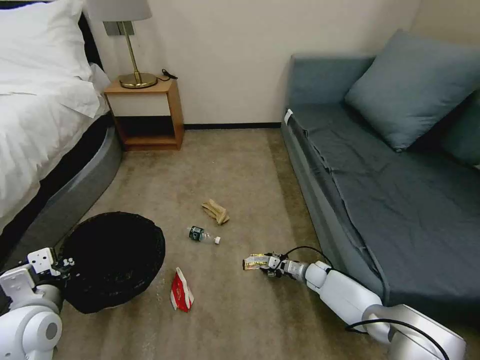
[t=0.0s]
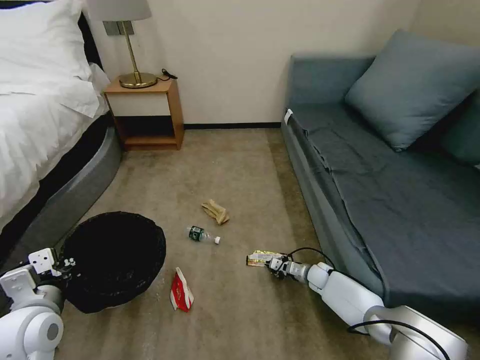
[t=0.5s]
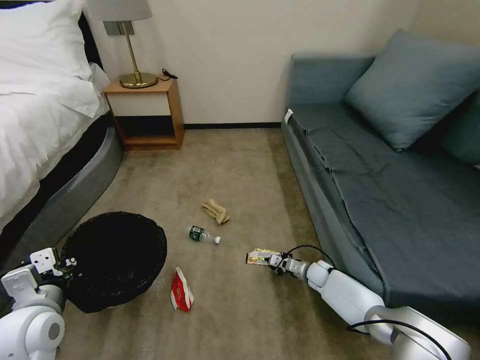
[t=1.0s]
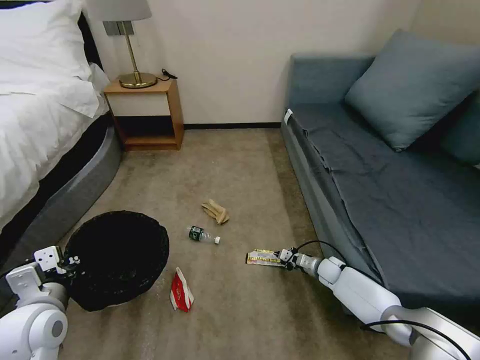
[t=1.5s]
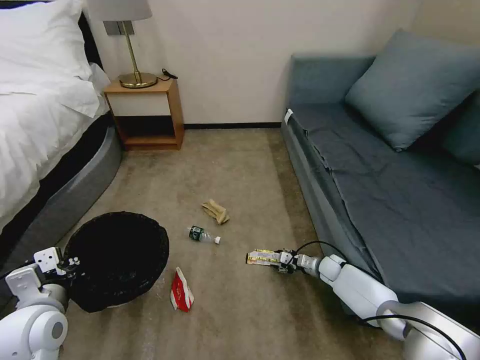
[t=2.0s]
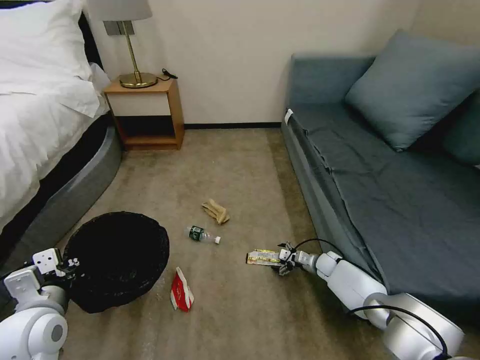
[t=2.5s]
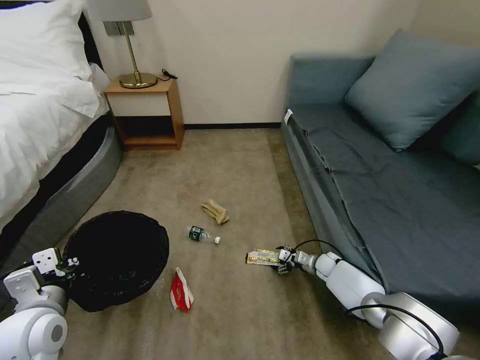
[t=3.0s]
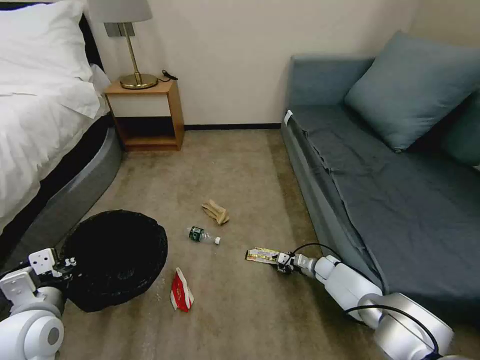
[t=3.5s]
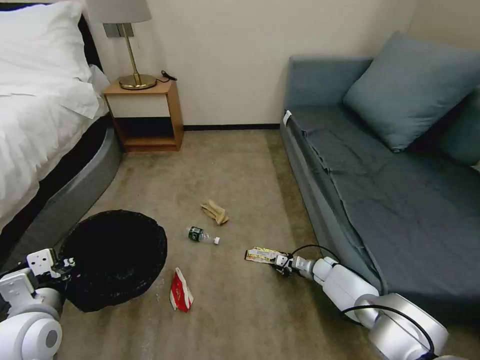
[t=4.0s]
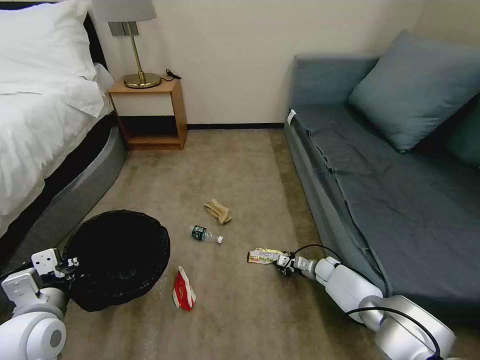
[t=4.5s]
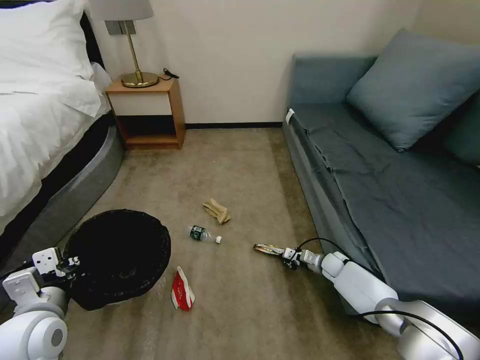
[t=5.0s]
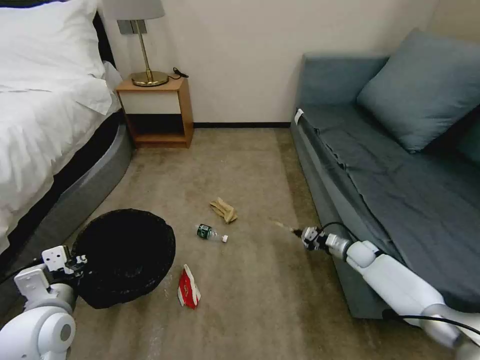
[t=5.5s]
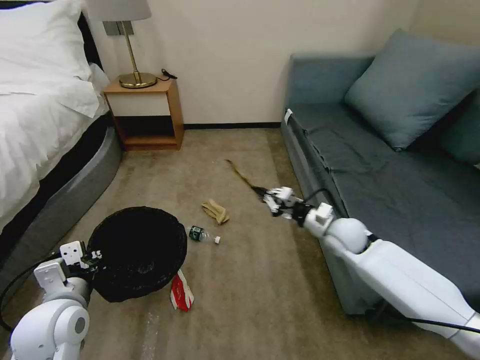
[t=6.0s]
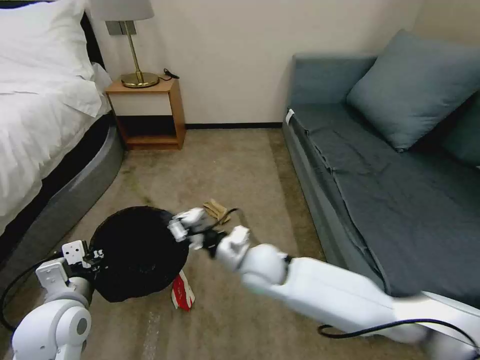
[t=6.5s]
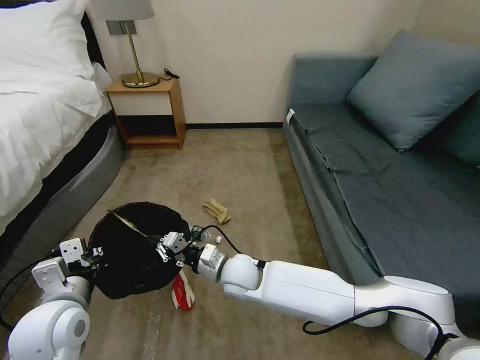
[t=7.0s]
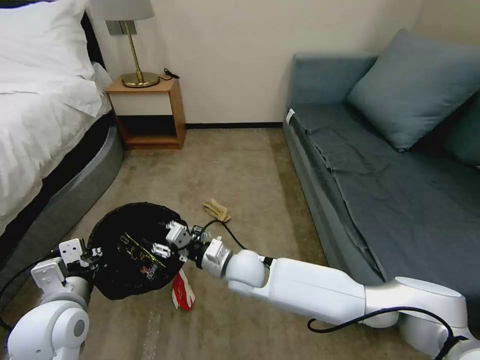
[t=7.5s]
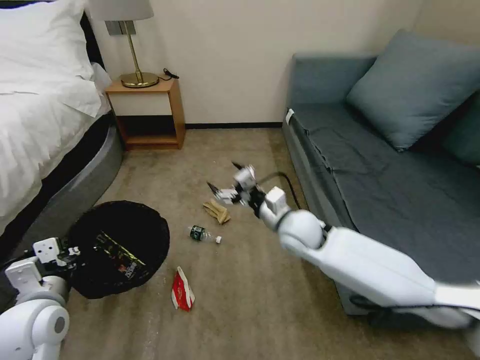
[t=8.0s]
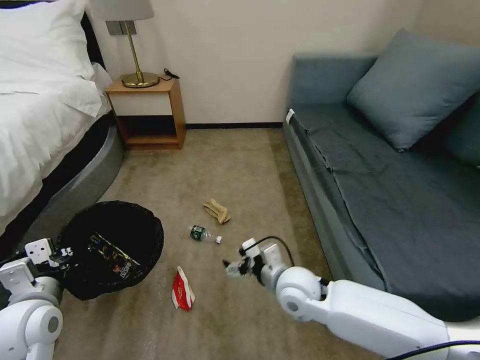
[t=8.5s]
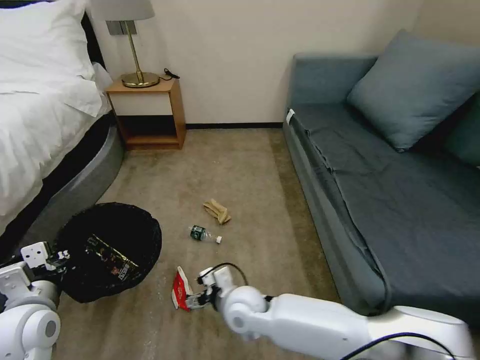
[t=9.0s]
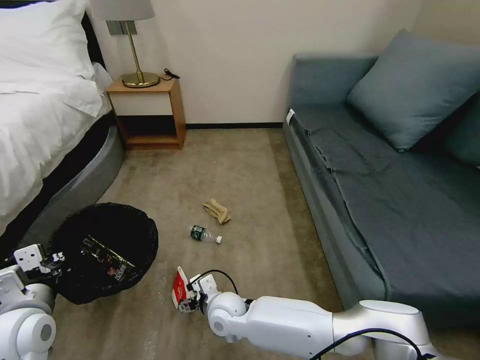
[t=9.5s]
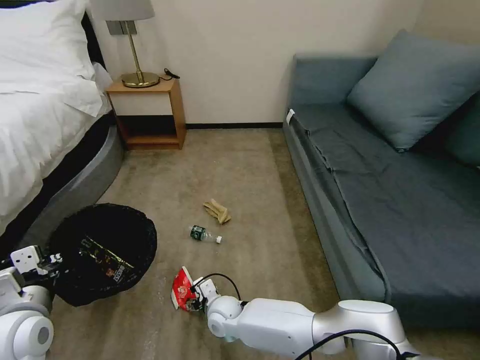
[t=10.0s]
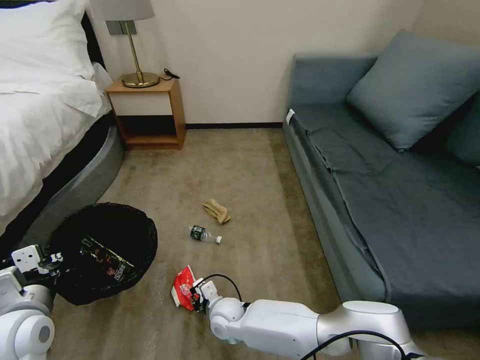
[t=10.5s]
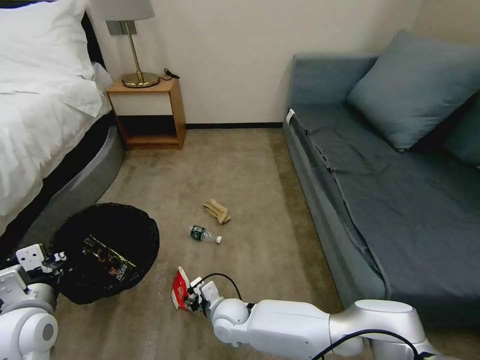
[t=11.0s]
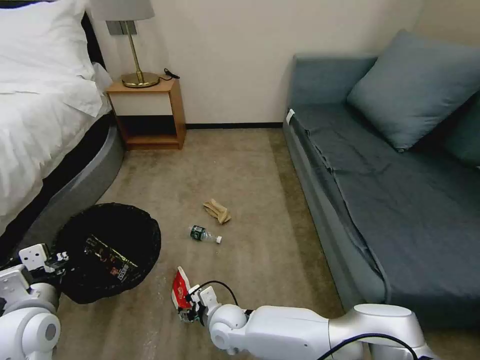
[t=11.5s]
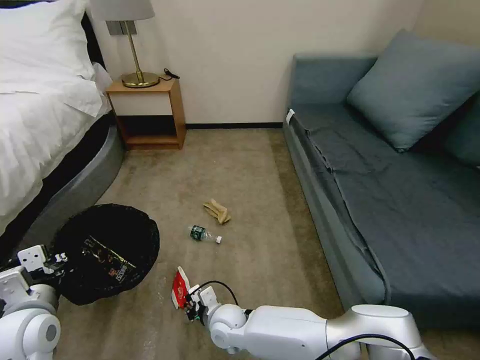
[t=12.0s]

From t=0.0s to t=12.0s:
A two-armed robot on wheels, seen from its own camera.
Task of the whole recording: Pick up the trash bin, then pick up the garbage on the floor and place it into the trash bin.
From t=0.0s to t=2.0s: The right gripper changes place by approximately 5 cm, and closes, then reopens.
From t=2.0s to t=4.0s: The right gripper closes up.
From t=4.0s to t=6.0s: The right gripper shifts some 25 cm upward.
From t=6.0s to t=8.0s: The right gripper heads to the left, covering roughly 10 cm, and opens up.
From t=8.0s to t=10.0s: The right gripper shifts roughly 30 cm downward, to the left and backward.
From t=10.0s to t=12.0s: The right gripper closes up.

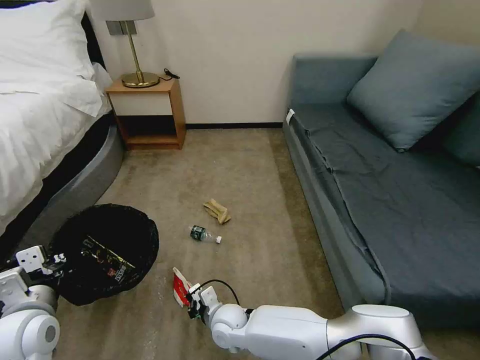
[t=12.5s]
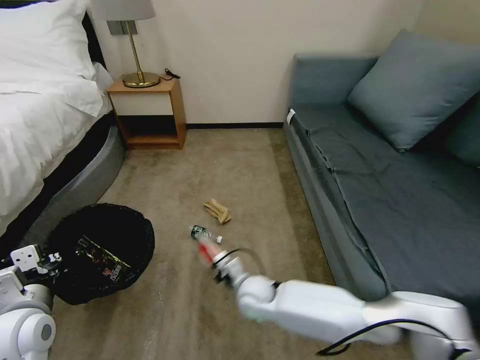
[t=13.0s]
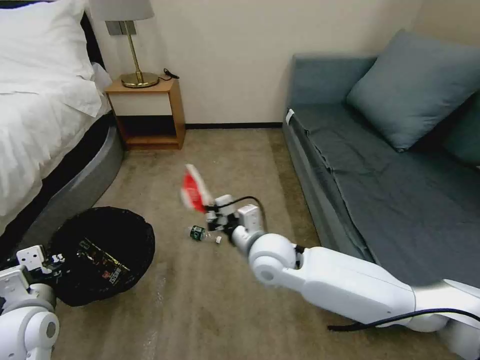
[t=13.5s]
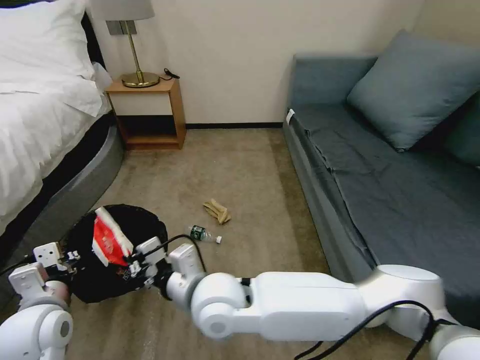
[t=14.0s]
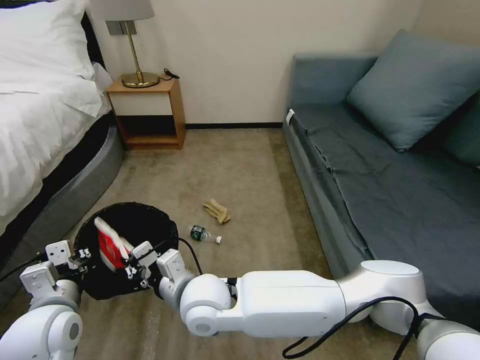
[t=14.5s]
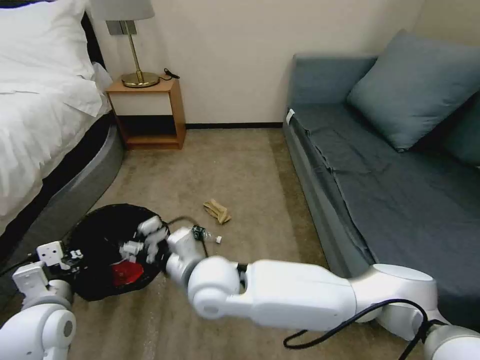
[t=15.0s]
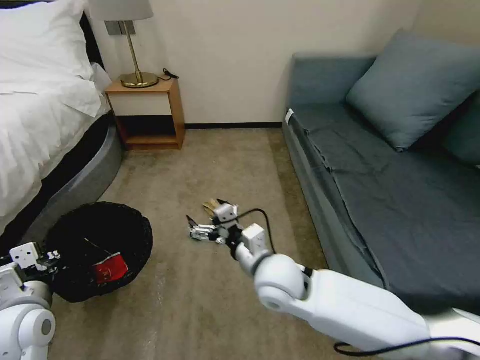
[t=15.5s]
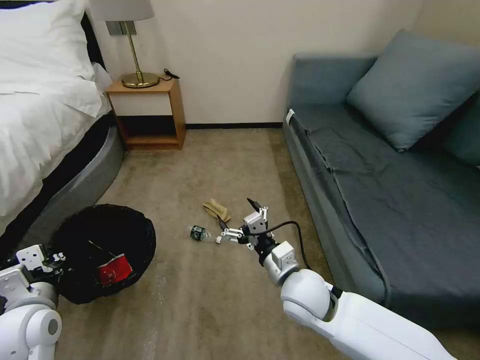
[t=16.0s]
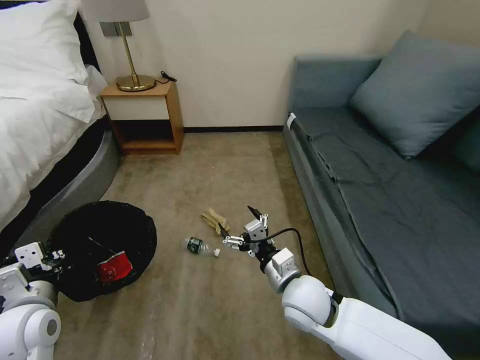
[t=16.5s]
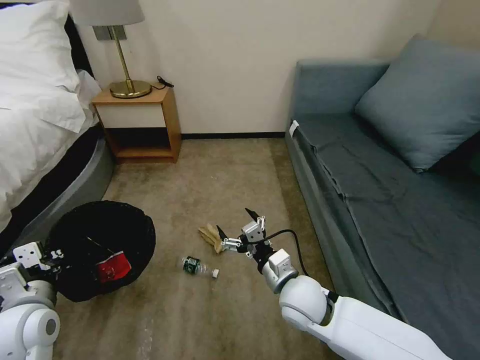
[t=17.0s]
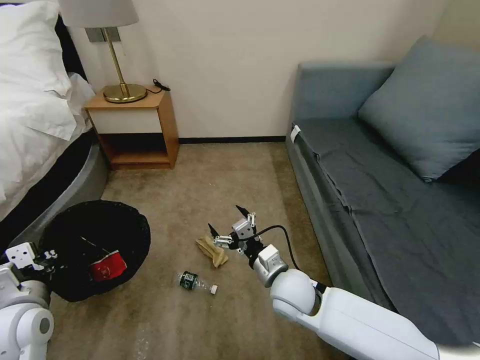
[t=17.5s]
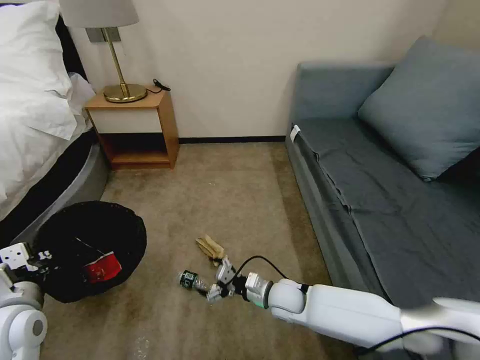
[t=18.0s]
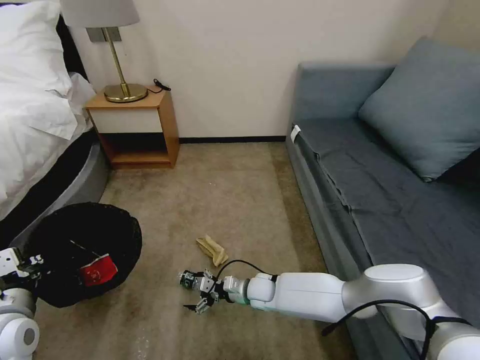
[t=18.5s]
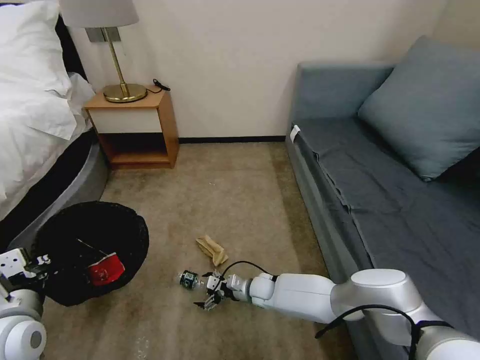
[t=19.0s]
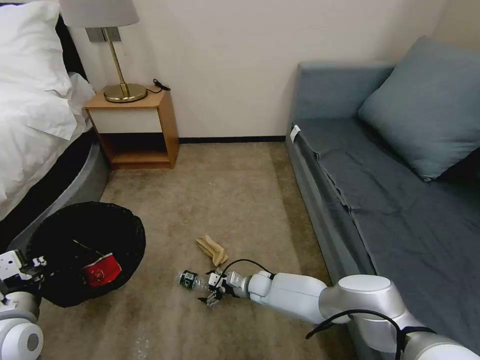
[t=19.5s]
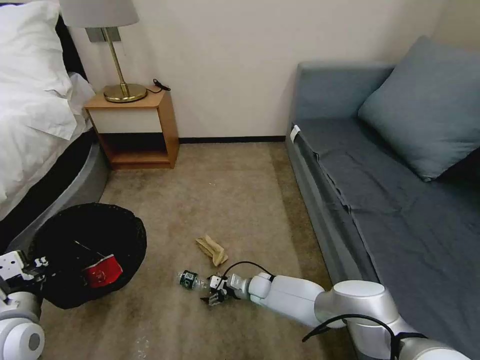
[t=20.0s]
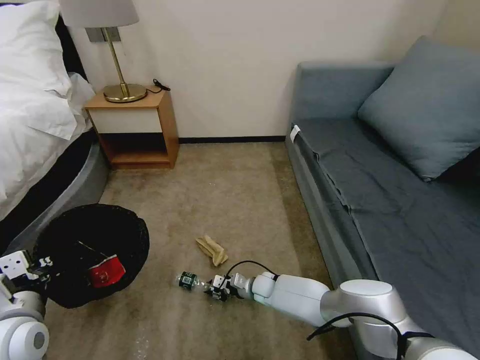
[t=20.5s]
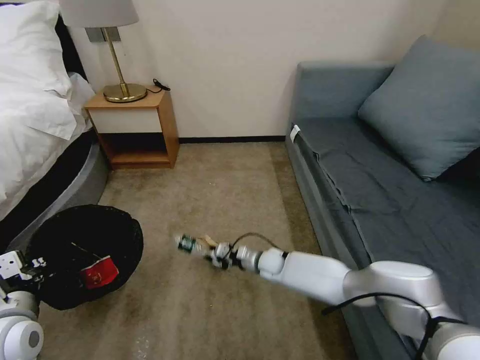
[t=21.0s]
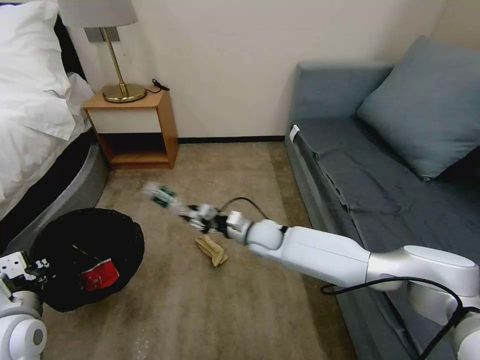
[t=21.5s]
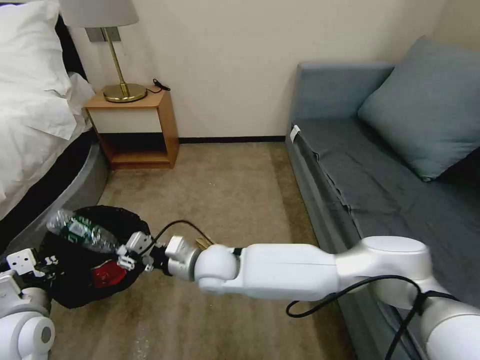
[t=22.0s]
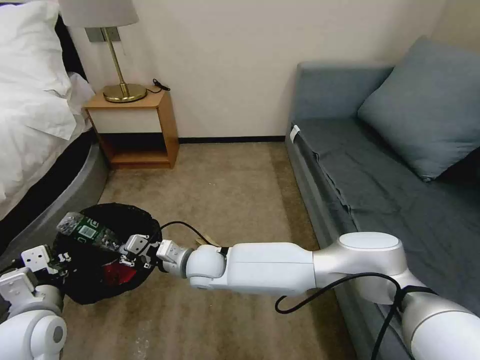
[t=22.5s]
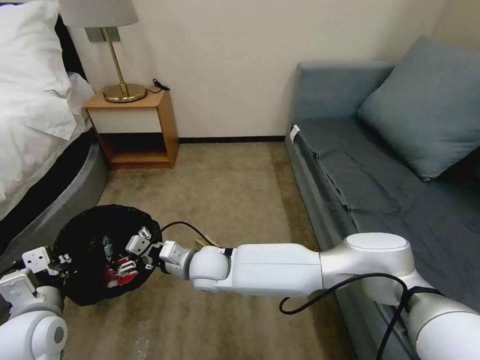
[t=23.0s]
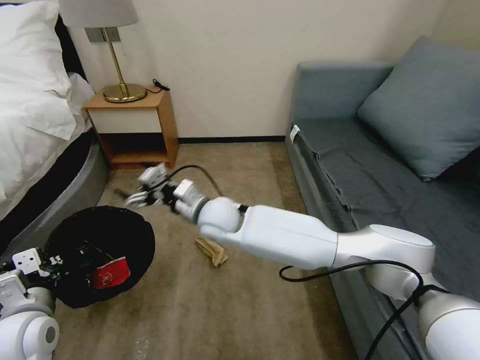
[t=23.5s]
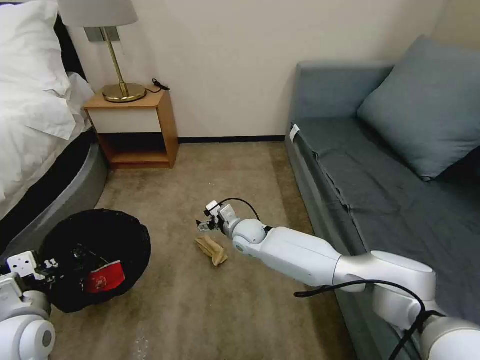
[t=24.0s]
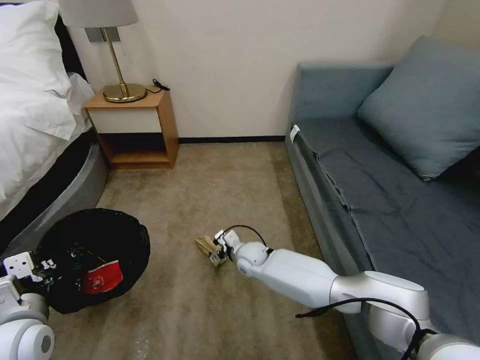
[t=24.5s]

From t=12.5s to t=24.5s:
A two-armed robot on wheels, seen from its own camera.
Task of the whole recording: Pick up the trash bin, then pick up the garbage on the floor and place it into the trash bin.
From t=12.5s to t=14.5s: The right gripper moves upward, roughly 20 cm.
From t=14.5s to t=16.5s: The right gripper moves to the right, approximately 20 cm, and opens up.
From t=16.5s to t=18.5s: The right gripper moves downward and forward, approximately 20 cm.
From t=18.5s to t=20.5s: The right gripper heads downward, covering some 5 cm, and closes.
From t=20.5s to t=22.5s: The right gripper shifts roughly 30 cm upward and to the left.
From t=22.5s to t=24.5s: The right gripper travels to the right, downward and forward by roughly 20 cm, and opens its fingers.

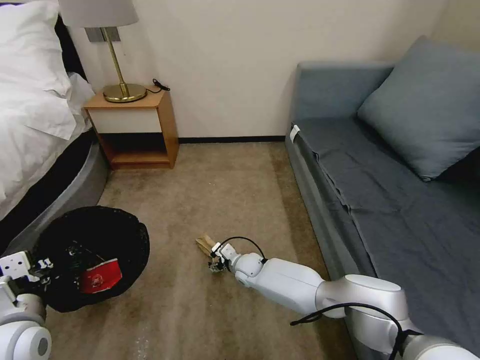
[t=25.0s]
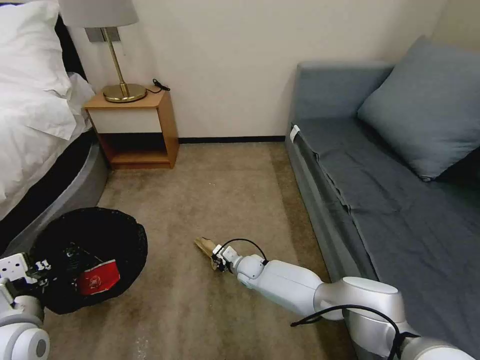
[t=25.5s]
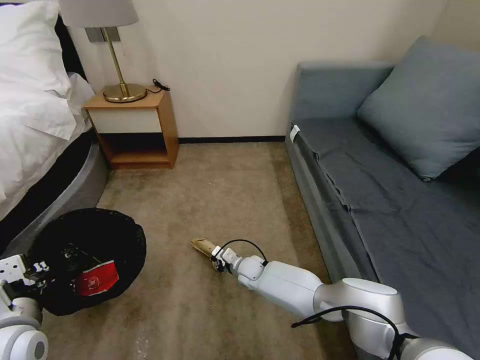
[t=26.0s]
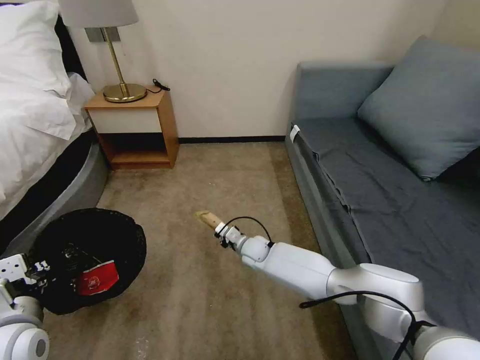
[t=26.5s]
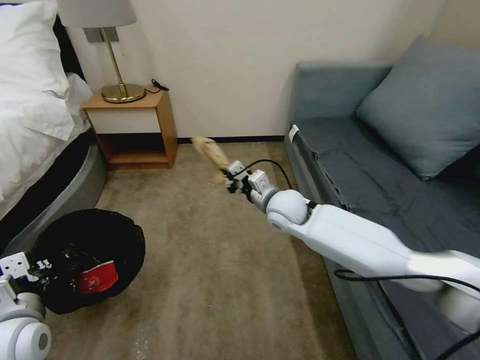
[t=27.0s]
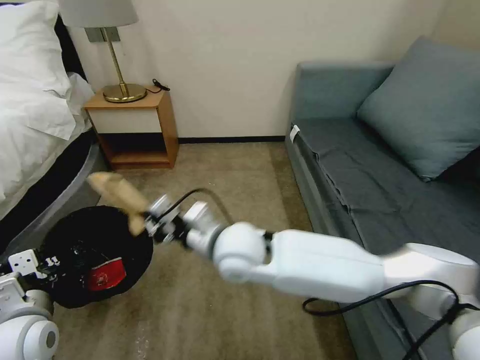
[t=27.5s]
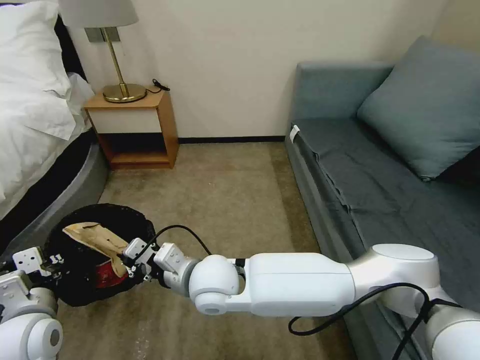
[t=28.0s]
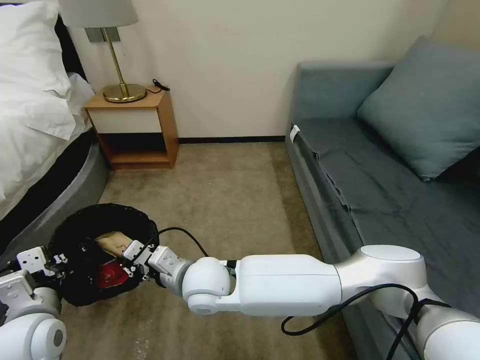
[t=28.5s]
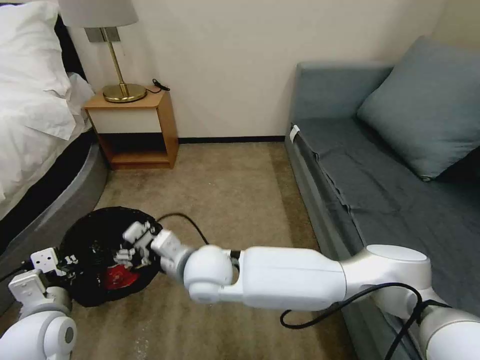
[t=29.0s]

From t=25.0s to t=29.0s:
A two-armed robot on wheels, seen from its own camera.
Task of the whole recording: Pick up the trash bin, then pick up the garbage on the floor and place it into the trash bin.
From t=25.0s to t=27.0s: The right gripper heads upward, covering approximately 25 cm, and closes.
From t=27.0s to t=29.0s: The right gripper moves to the left and backward, approximately 25 cm, and opens its fingers.
